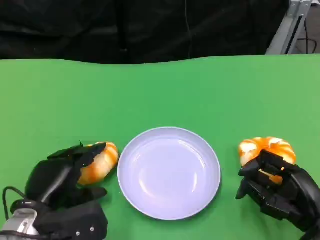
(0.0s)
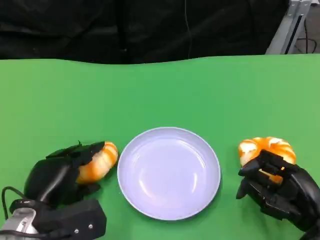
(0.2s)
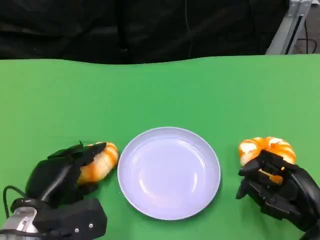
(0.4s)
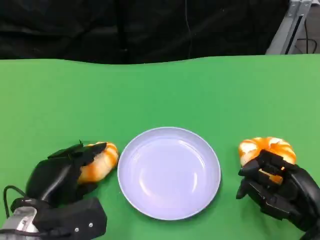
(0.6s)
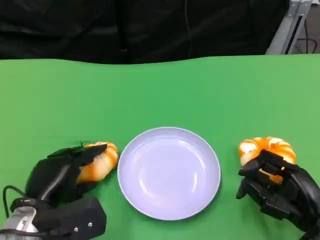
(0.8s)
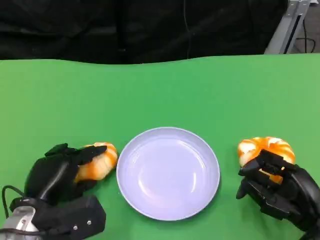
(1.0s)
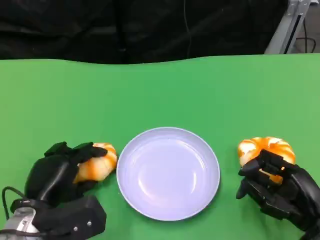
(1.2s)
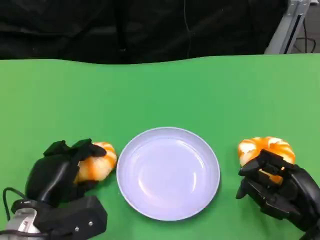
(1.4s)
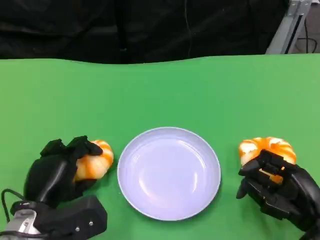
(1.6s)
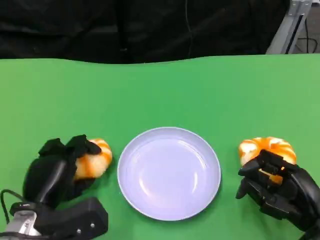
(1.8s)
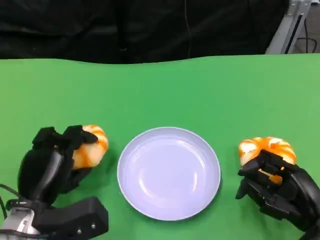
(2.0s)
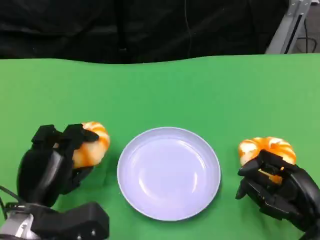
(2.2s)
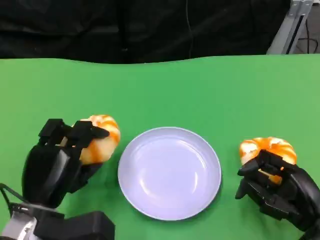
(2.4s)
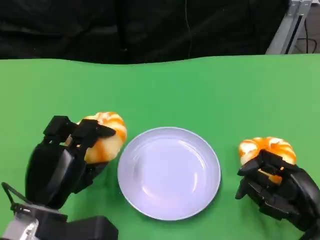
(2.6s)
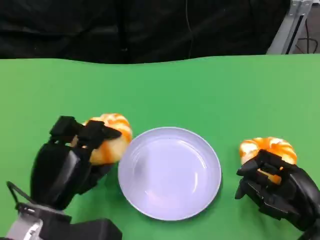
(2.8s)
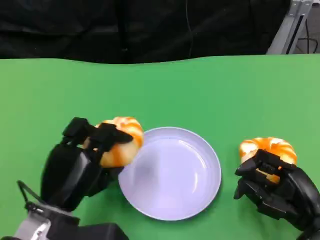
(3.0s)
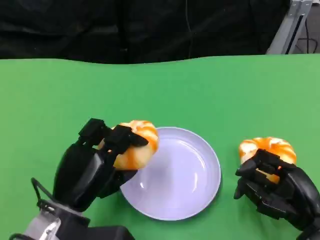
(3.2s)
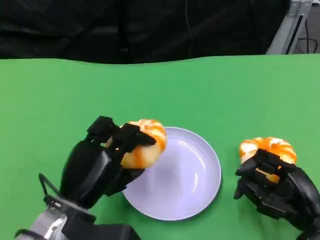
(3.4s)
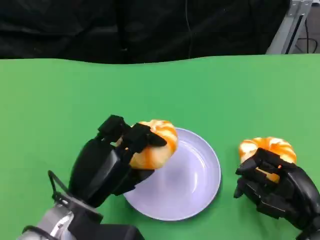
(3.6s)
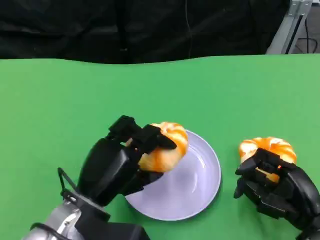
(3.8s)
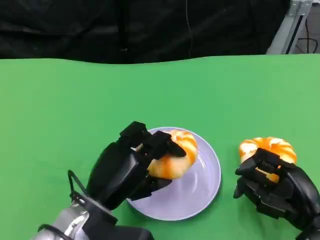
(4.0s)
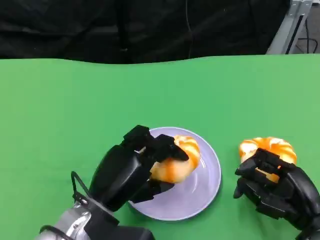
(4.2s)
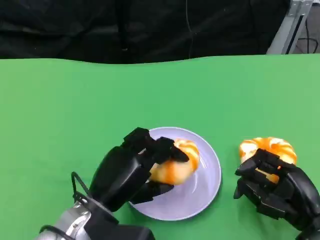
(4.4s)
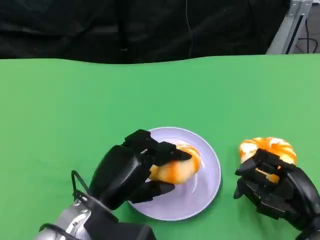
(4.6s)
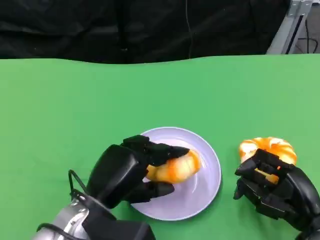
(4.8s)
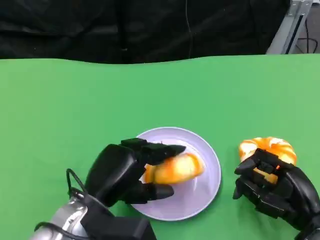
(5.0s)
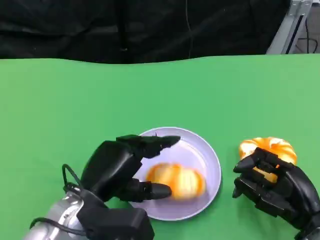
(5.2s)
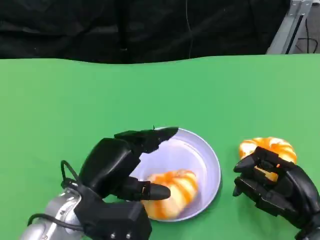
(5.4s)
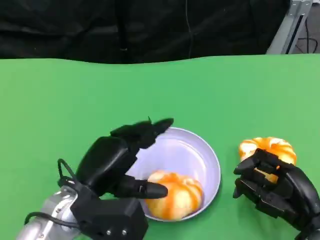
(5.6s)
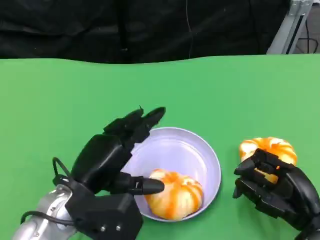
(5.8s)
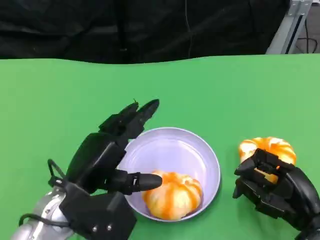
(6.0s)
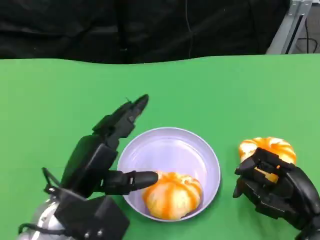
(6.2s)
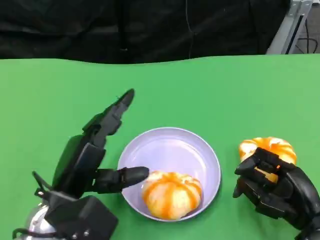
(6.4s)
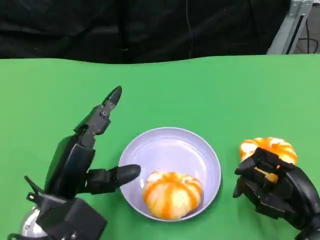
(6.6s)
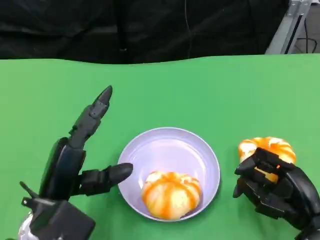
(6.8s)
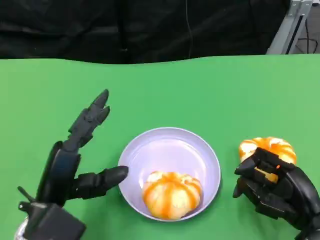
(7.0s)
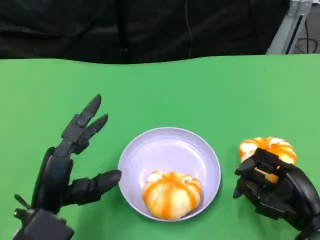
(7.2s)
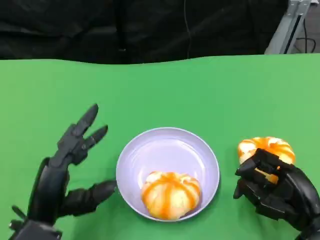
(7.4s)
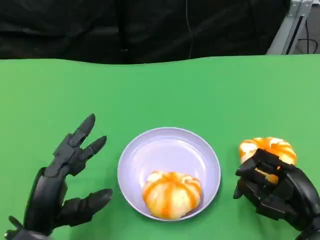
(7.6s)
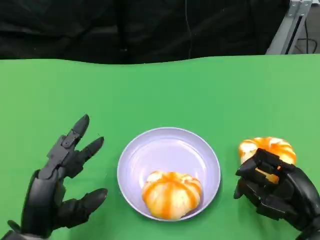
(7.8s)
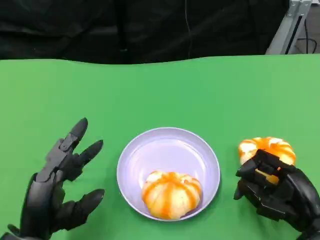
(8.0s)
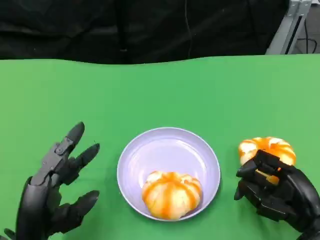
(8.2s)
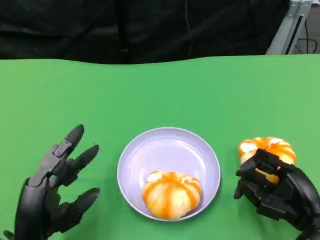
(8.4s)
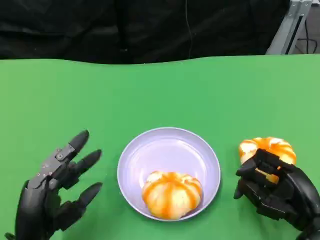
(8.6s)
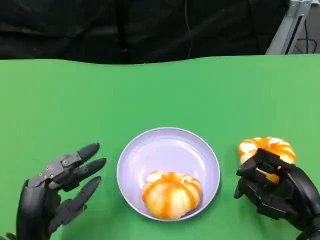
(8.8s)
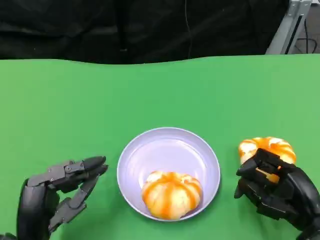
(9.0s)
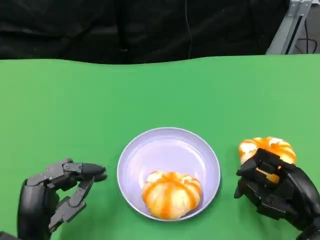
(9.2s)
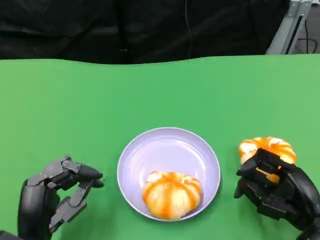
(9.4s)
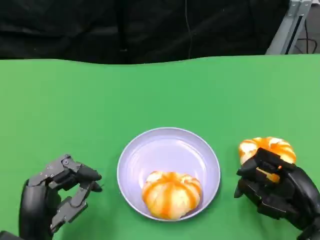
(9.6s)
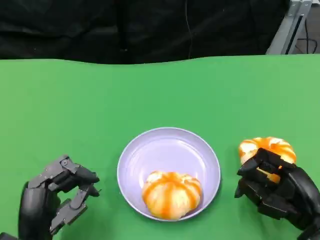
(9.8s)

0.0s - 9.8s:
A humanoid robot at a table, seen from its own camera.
Task of the whole recording: Grasp the bread from the table and place it into the plate.
0.0s - 1.4s: There are only small adjustments of the hands.
1.4s - 2.8s: The left hand moves some 5 cm.
2.8s - 4.2s: The left hand heads to the right, covering about 5 cm.
4.2s - 5.6s: The hands stay close to where they were, moving slightly.
7.0s - 8.4s: The left hand moves some 5 cm.
8.4s - 9.8s: The hands make only small movements.

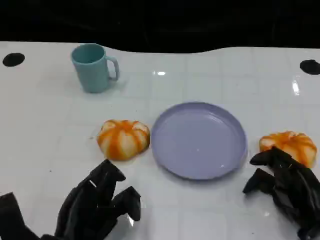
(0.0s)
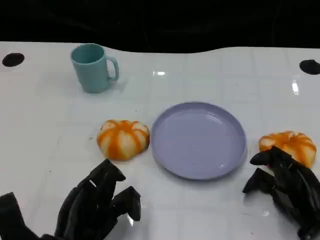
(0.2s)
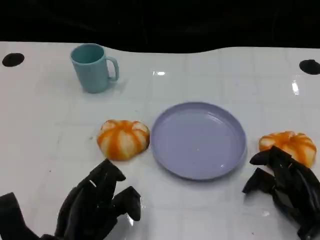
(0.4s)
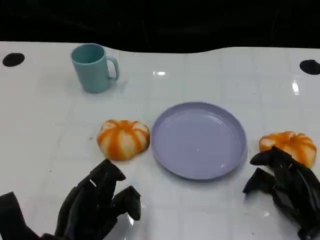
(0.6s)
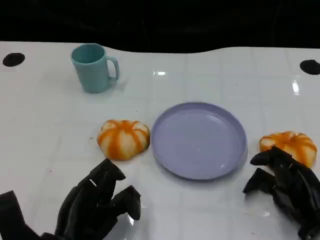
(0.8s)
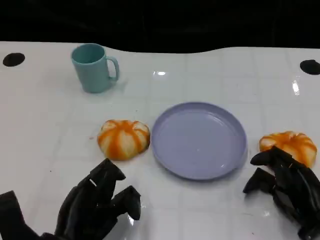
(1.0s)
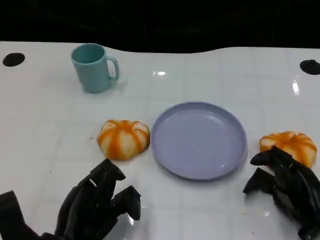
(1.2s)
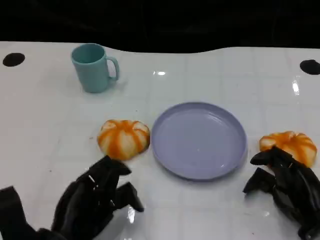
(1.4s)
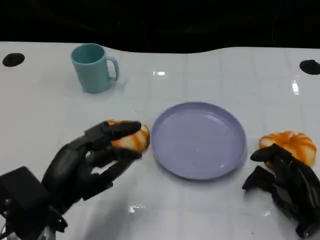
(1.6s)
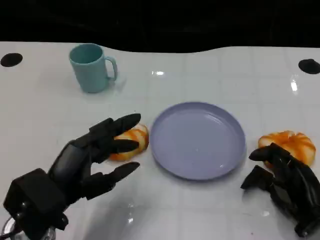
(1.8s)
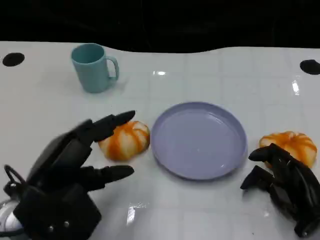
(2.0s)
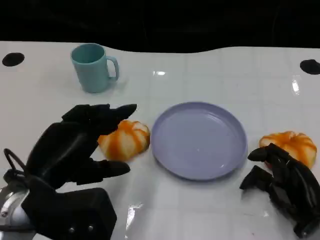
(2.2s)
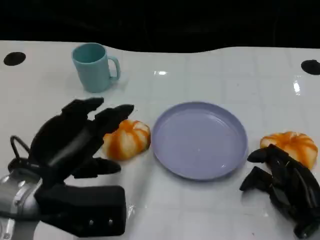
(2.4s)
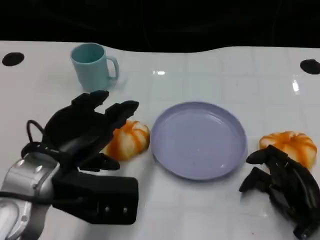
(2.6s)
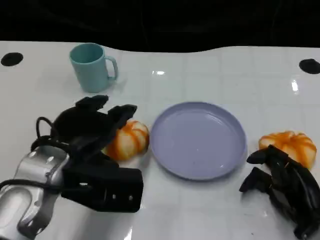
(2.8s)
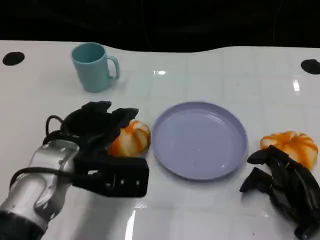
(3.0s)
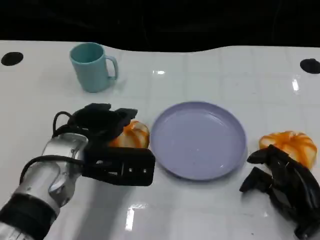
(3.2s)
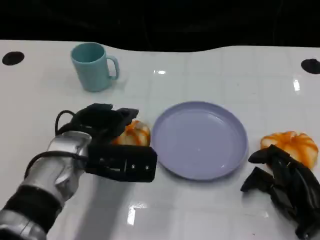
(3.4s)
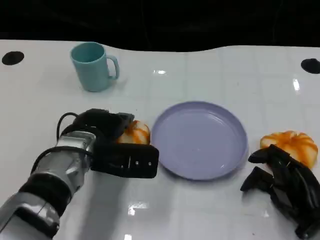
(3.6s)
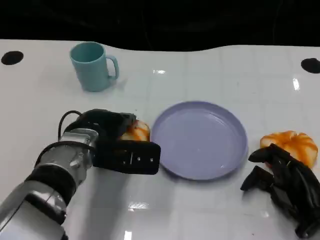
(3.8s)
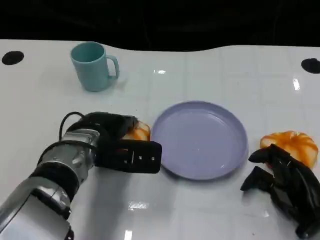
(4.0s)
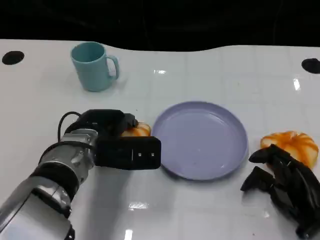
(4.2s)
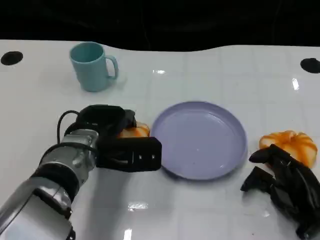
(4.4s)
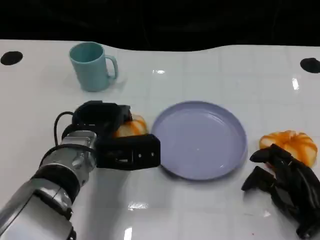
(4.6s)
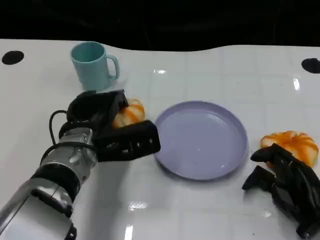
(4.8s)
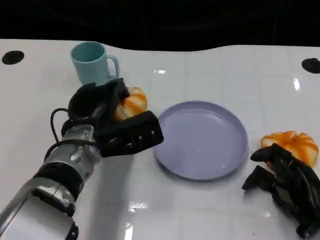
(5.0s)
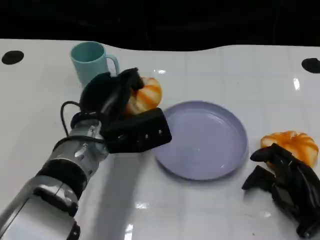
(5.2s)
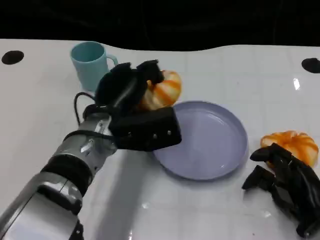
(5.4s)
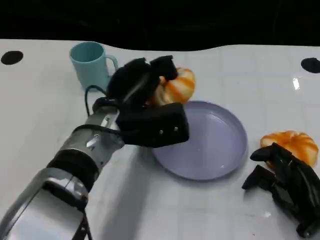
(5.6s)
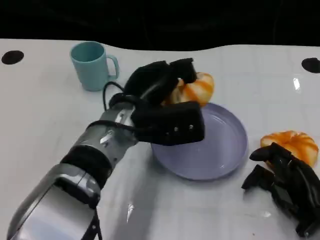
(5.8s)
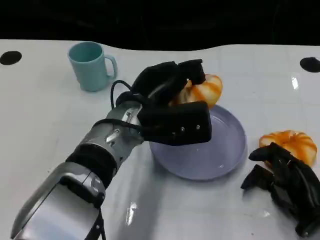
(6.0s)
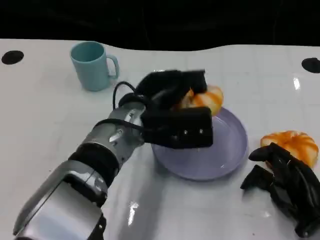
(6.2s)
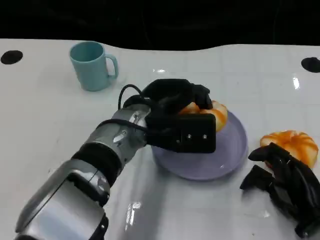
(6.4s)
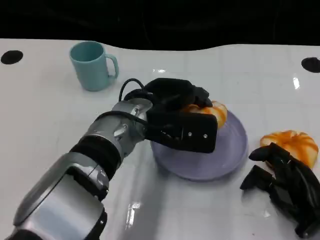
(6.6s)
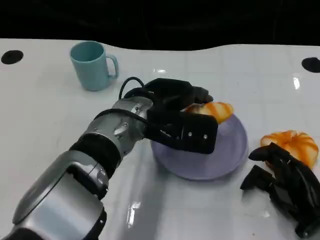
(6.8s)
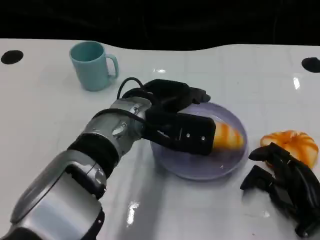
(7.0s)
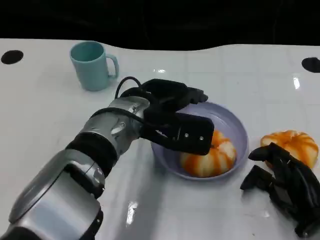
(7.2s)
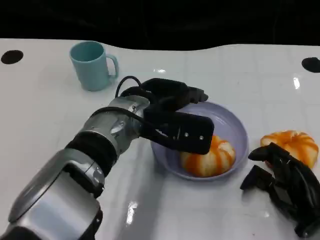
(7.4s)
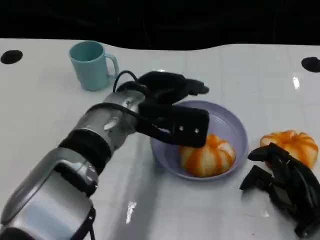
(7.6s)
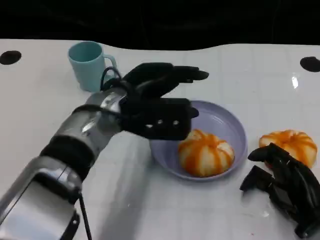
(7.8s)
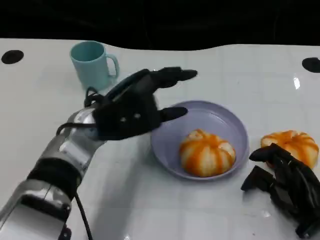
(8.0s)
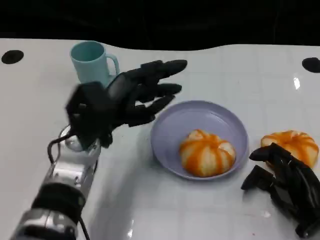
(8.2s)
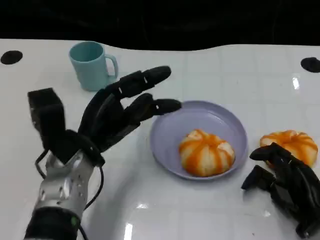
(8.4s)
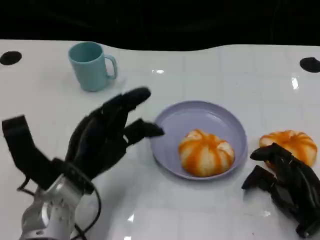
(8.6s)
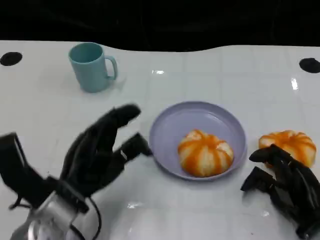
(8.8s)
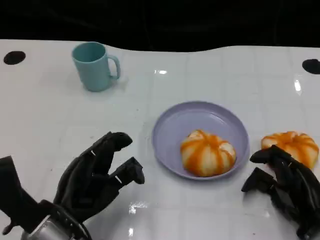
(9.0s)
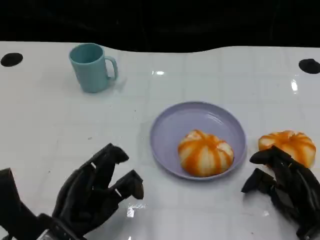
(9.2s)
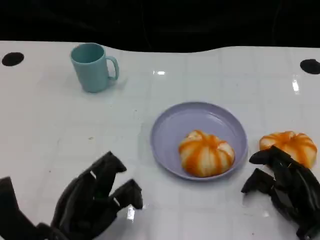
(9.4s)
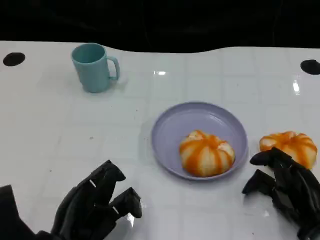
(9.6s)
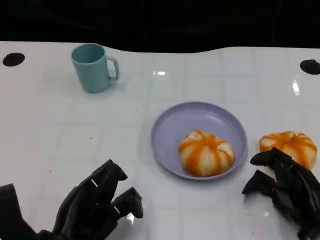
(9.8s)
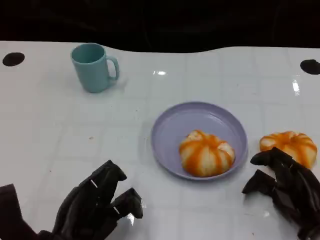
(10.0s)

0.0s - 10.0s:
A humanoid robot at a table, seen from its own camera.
Task of the whole recording: Grasp the bread from the table and place it into the plate.
0.0s - 1.4s: The hands make only small movements.
1.4s - 2.8s: The left hand travels upward and forward by roughly 10 cm.
2.8s - 4.2s: The left hand shifts about 5 cm forward.
4.2s - 5.8s: The left hand moves to the right, about 5 cm.
7.2s - 8.6s: The left hand is displaced to the left, downward and backward by about 15 cm.
8.6s - 10.0s: The left hand goes some 10 cm backward.

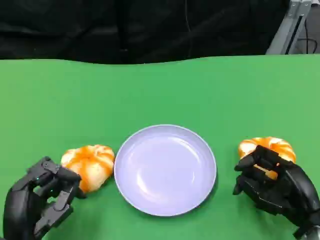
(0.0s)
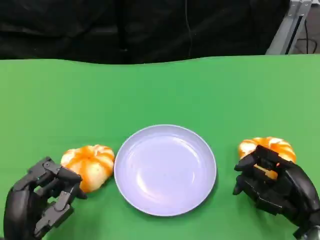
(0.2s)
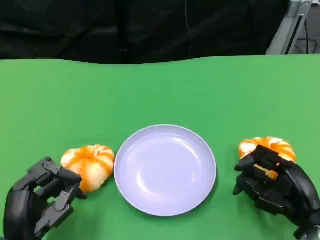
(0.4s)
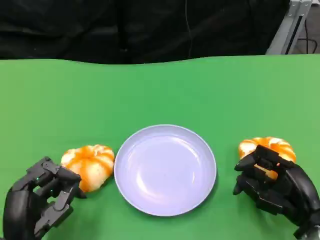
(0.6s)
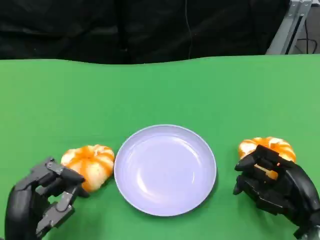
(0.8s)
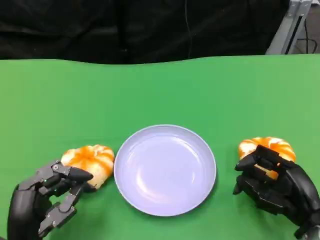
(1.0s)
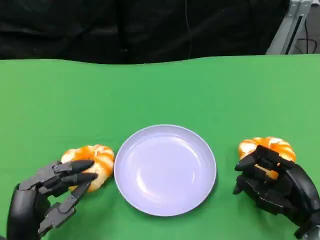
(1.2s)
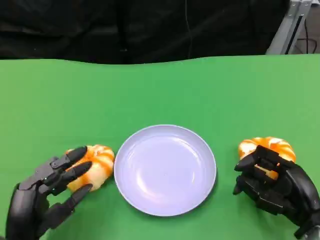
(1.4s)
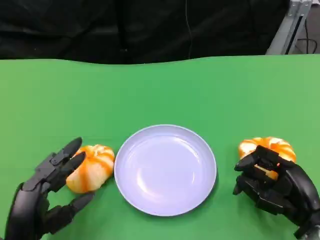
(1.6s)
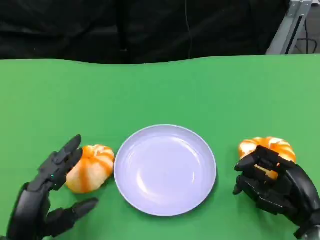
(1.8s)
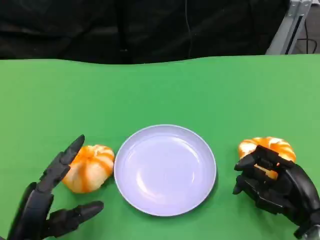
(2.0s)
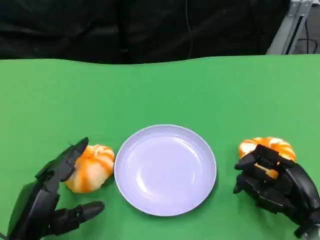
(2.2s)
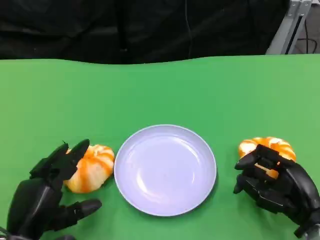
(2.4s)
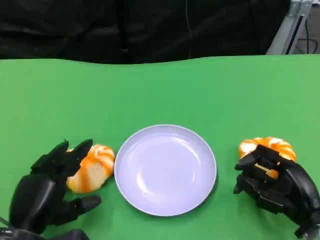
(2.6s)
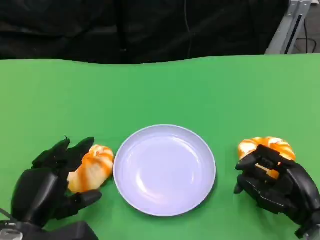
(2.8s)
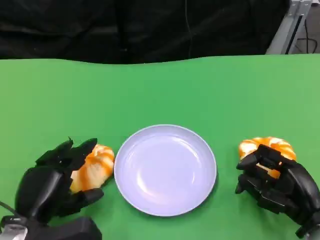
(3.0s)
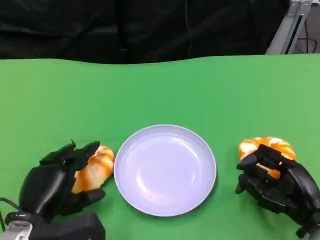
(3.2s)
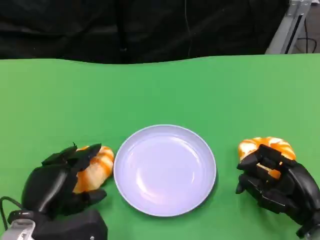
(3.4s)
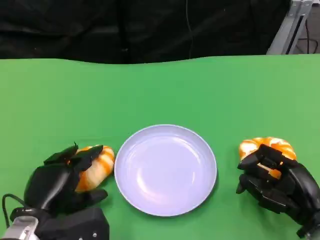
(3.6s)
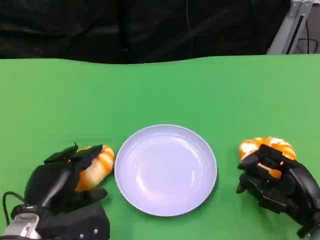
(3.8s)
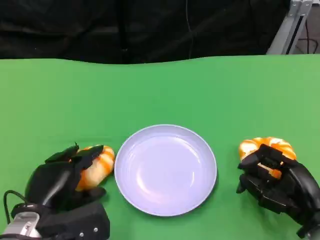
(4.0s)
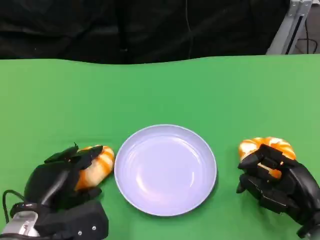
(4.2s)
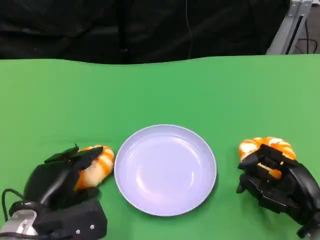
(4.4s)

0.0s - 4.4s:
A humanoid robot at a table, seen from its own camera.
Task of the whole recording: Grasp the bread from the table and place it into the plate.
0.0s - 1.4s: The hands stay close to where they were, moving slightly.
3.0s - 4.4s: The hands move only a little.
